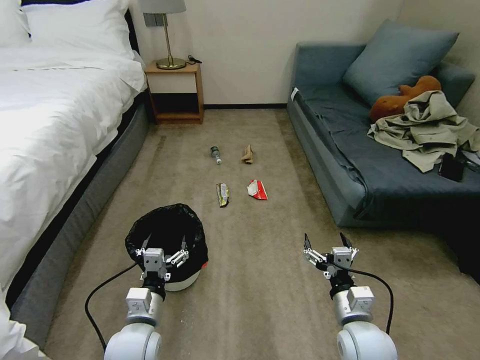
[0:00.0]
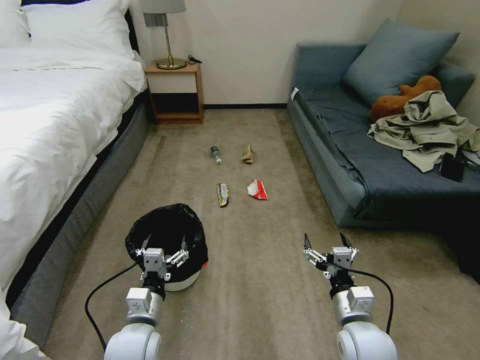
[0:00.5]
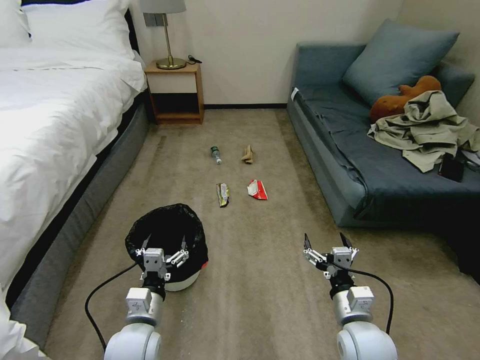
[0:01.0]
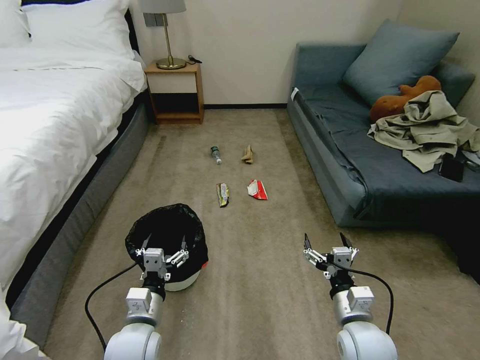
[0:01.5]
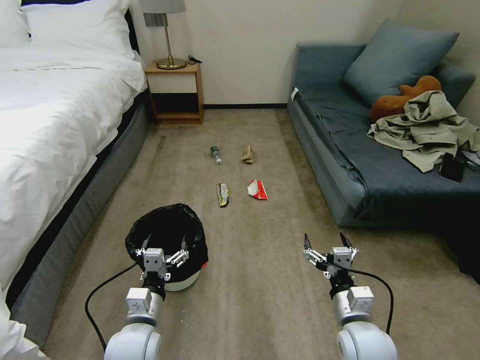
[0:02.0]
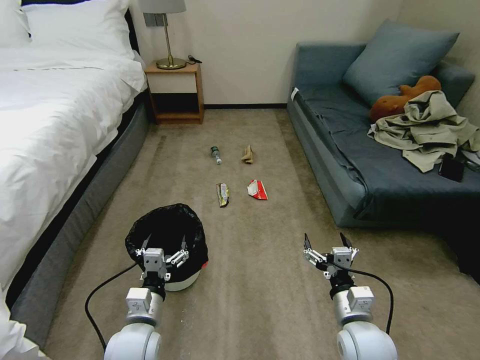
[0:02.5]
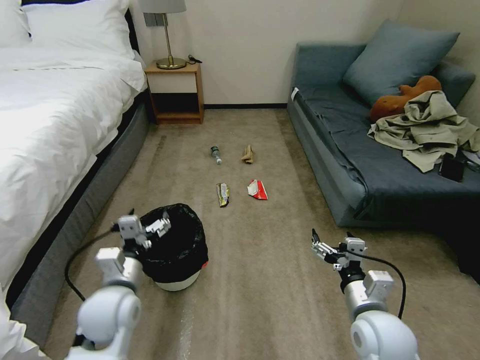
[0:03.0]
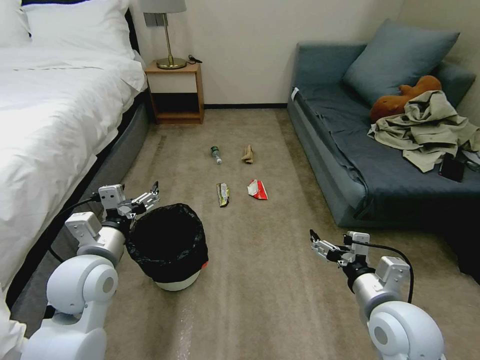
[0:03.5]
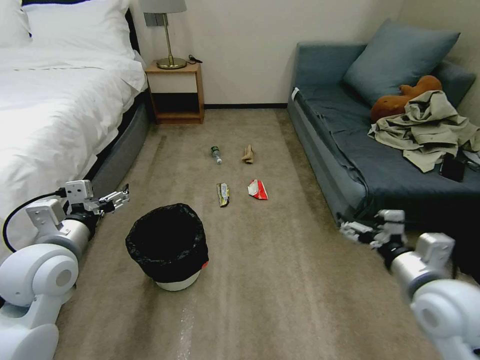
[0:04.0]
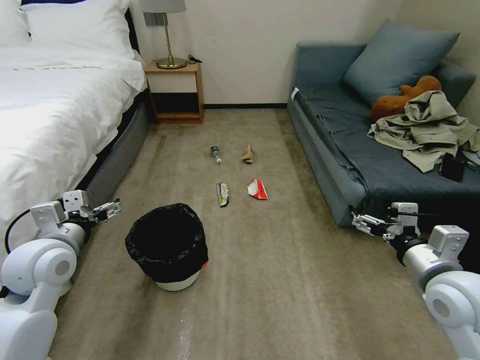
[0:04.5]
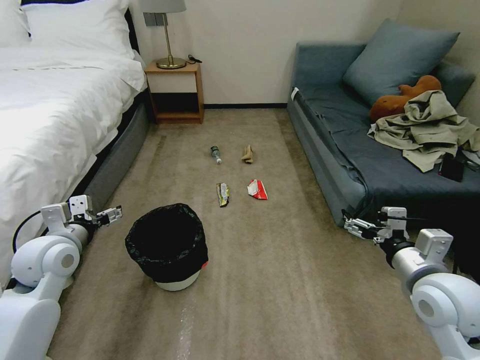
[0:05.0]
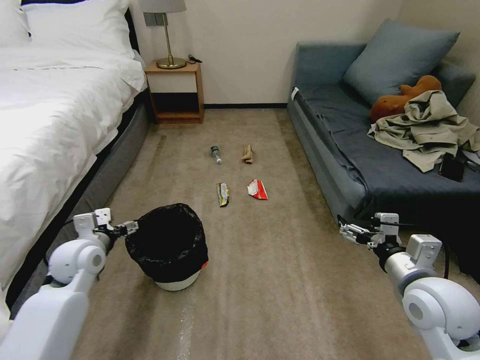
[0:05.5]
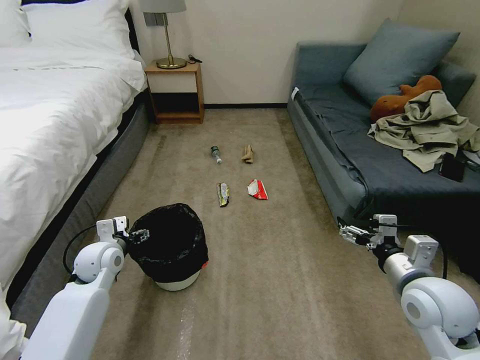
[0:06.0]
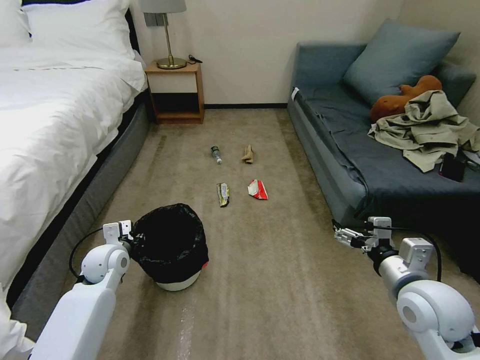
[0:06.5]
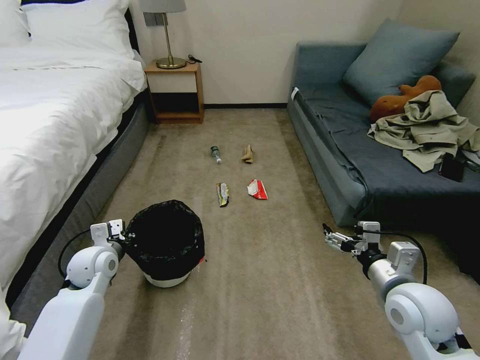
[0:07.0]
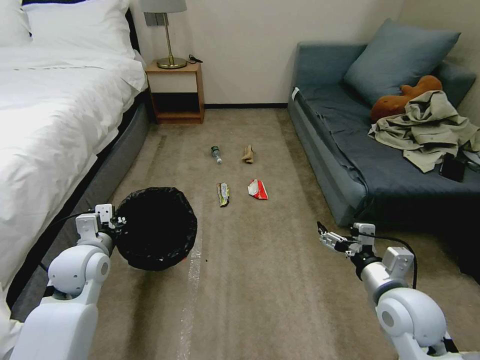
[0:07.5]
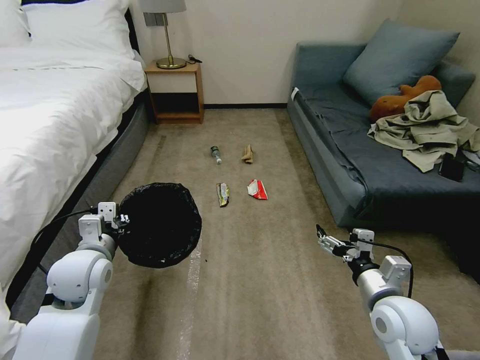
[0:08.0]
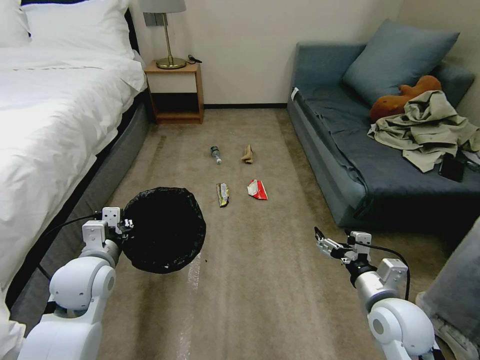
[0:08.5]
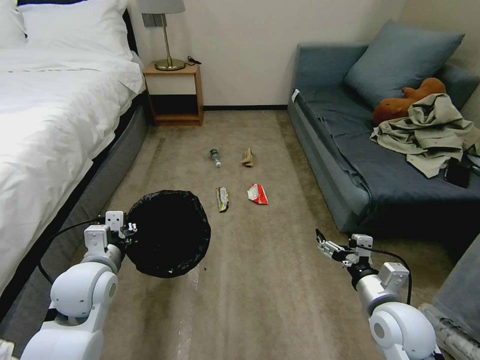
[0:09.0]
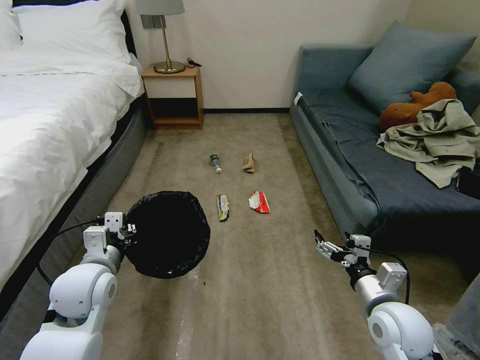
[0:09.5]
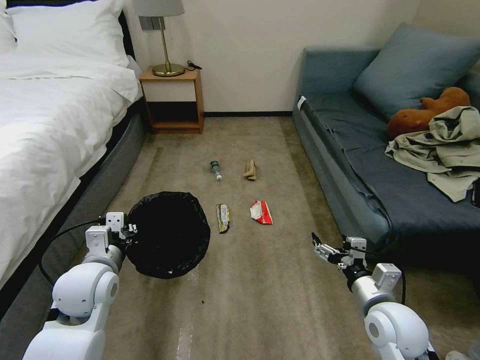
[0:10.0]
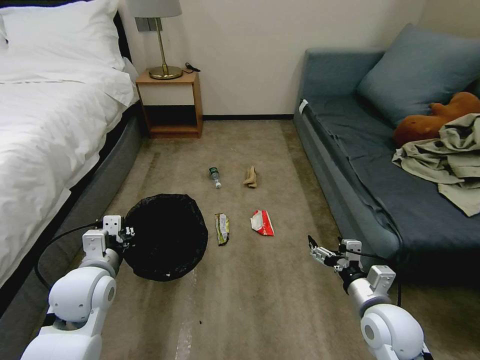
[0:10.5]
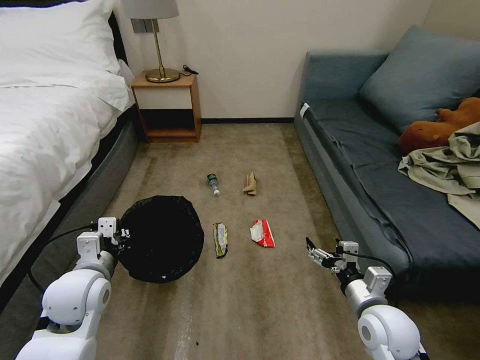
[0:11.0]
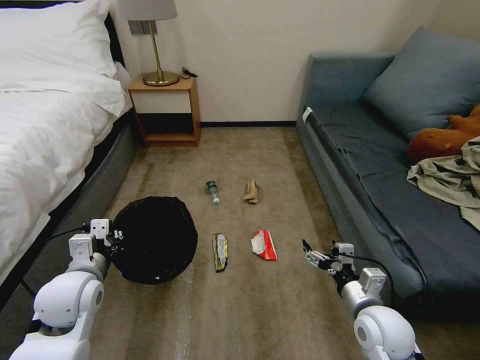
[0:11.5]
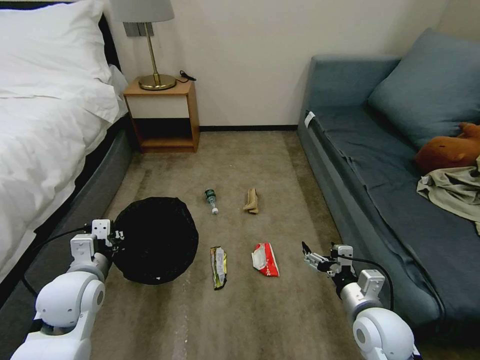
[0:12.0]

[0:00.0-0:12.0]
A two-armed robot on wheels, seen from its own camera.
Task of the whole recording: Pick up the trash bin, then pick up the garbage on the floor and place it into the trash bin.
0:02.0 to 0:04.0: The left gripper moves upward and to the left, approximately 25 cm, while the right gripper goes roughly 20 cm upward and to the right.
0:04.0 to 0:06.0: The left gripper shifts approximately 20 cm downward and forward.
0:06.0 to 0:08.0: The left gripper travels upward and backward by roughly 10 cm, and closes its fingers, while the right gripper is displaced downward by roughly 5 cm.

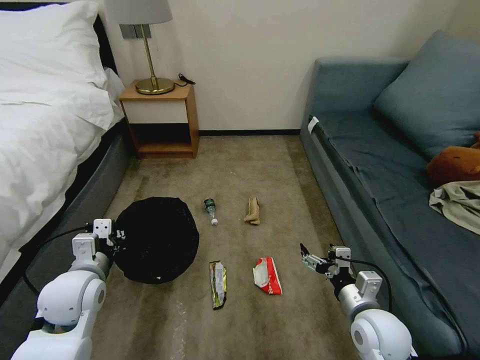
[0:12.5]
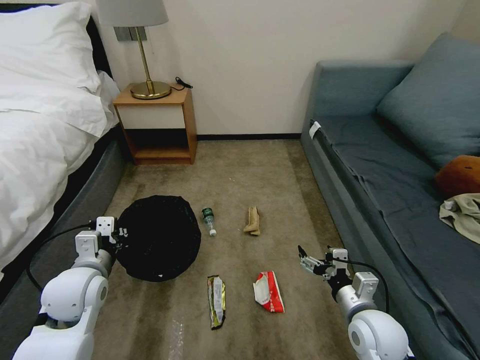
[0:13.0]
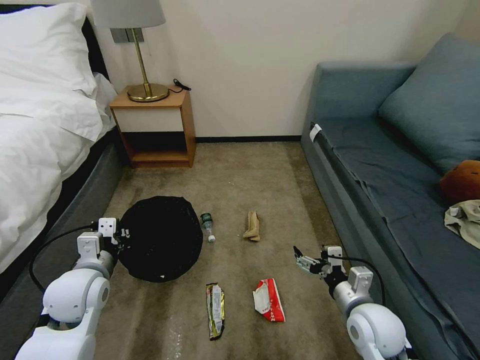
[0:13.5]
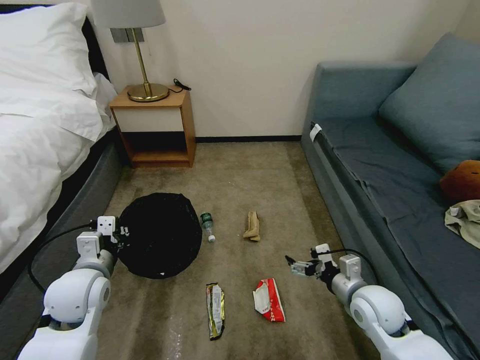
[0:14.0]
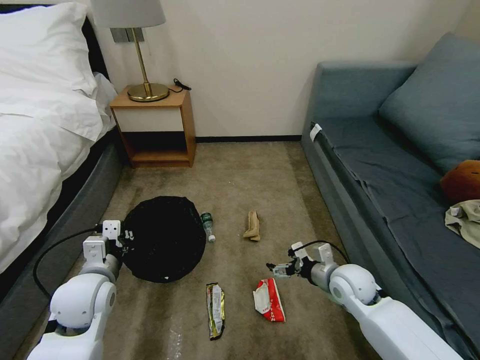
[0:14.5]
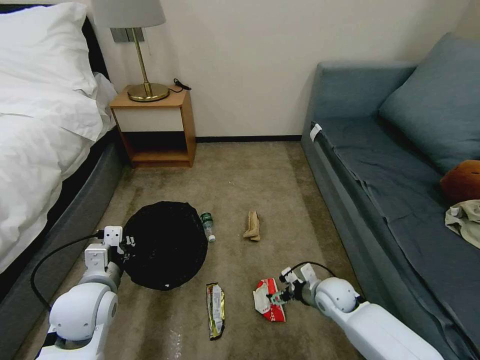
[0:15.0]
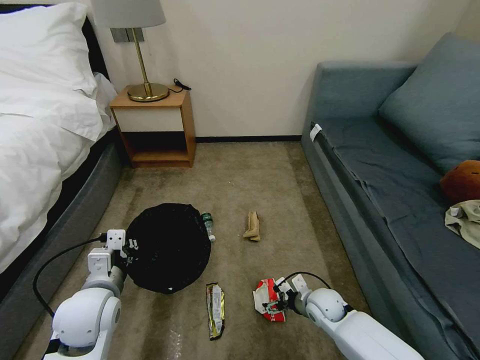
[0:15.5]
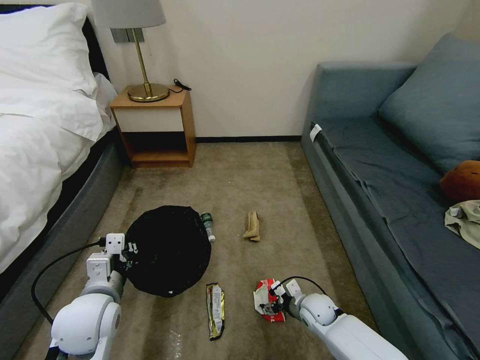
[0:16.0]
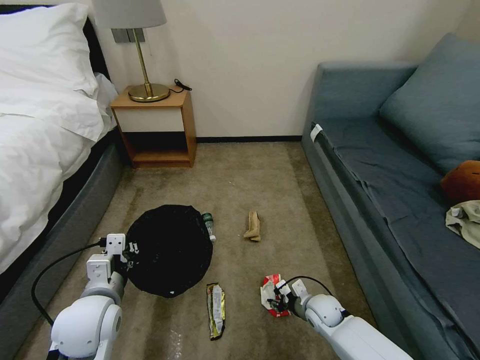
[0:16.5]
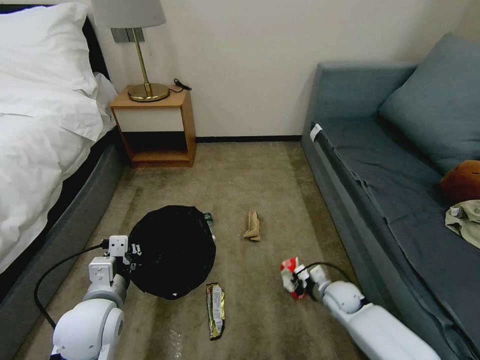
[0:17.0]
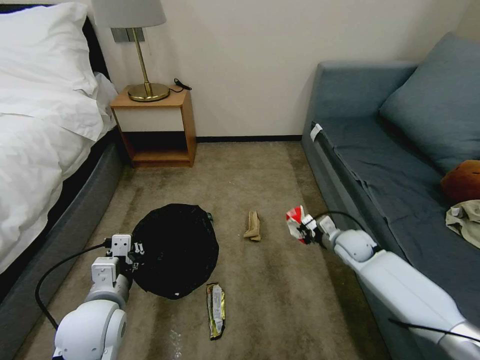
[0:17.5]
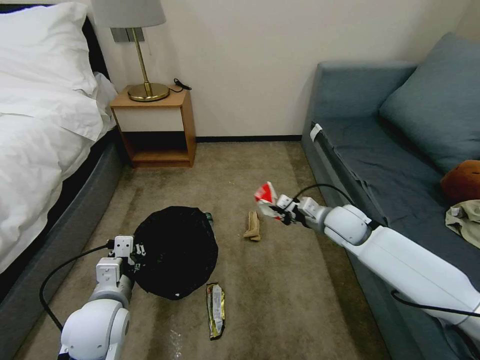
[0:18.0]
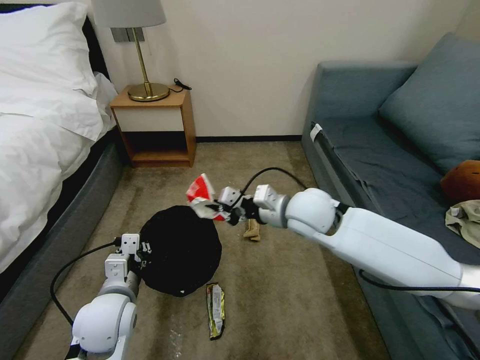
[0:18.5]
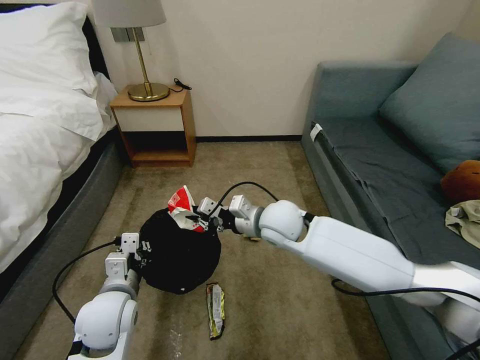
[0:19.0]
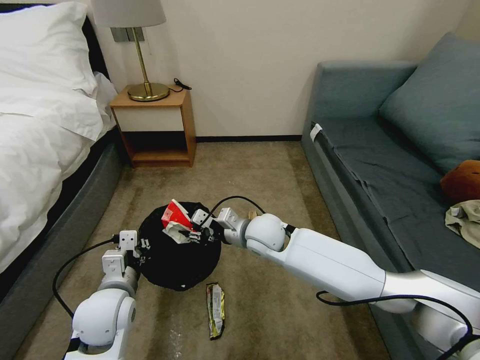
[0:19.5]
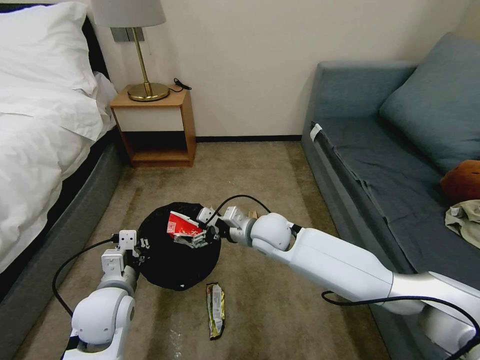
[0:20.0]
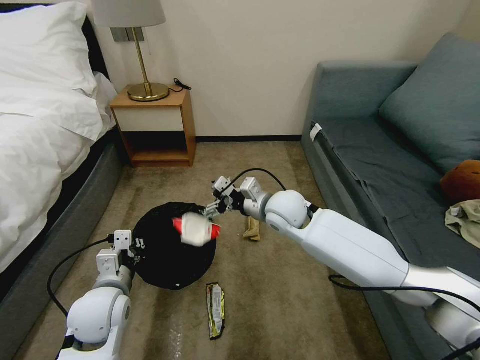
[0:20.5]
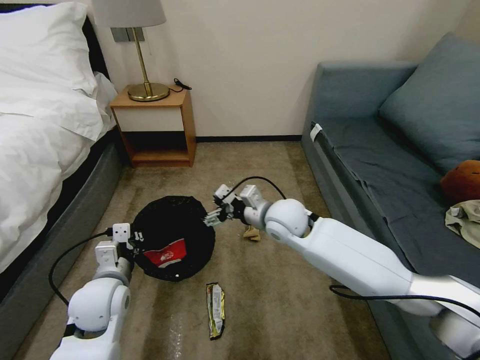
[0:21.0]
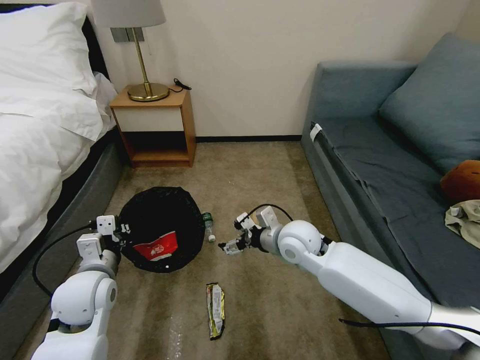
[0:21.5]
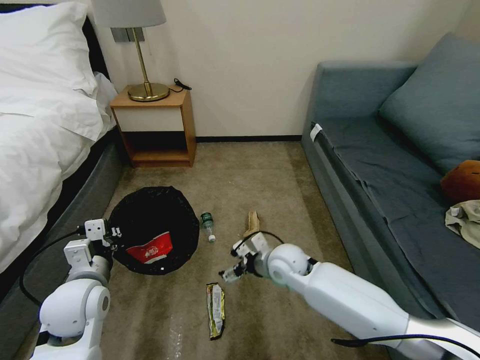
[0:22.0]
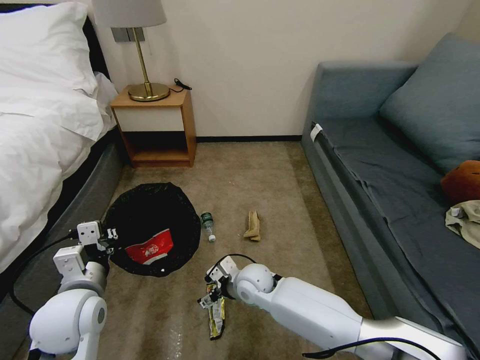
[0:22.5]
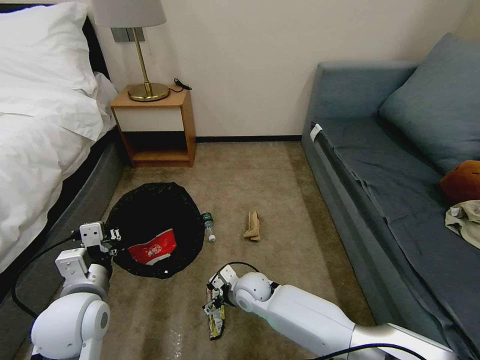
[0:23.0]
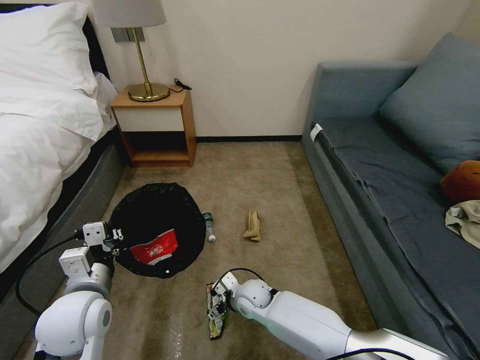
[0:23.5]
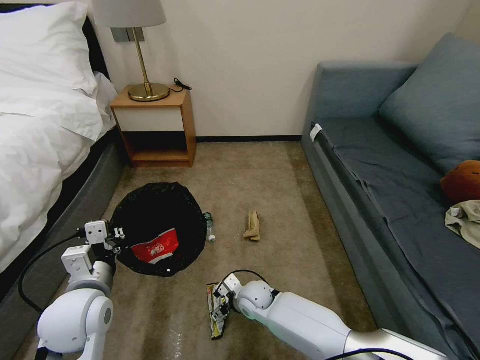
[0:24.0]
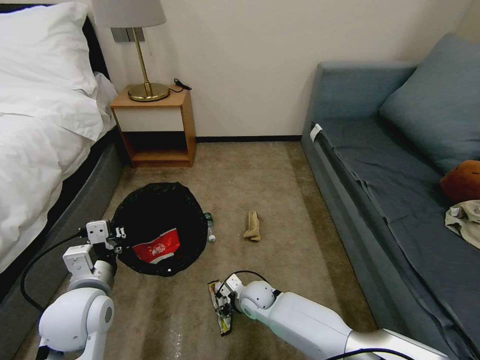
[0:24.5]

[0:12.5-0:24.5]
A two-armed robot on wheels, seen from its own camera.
Task of the whole recording: Pick up the trash bin, then pick up the garbage on the floor and place it into the trash bin.
0:12.5 to 0:14.5: The right gripper shifts roughly 10 cm forward.
0:14.5 to 0:16.5: The left gripper shifts by roughly 5 cm; the right gripper travels downward by some 15 cm, and closes.
0:16.5 to 0:18.5: The right gripper travels upward by about 35 cm, and closes up.
0:18.5 to 0:20.5: The right gripper opens.
0:20.5 to 0:22.5: The right gripper goes roughly 20 cm downward and backward; the left gripper shifts by roughly 5 cm.
0:22.5 to 0:24.5: The right gripper goes roughly 10 cm downward, and closes its fingers.

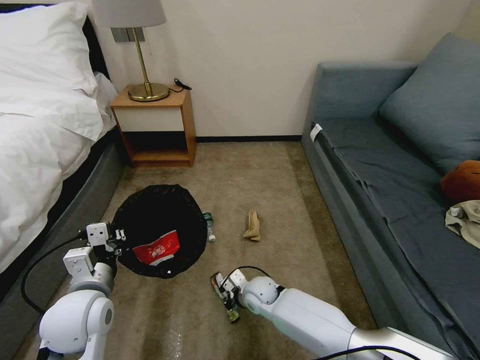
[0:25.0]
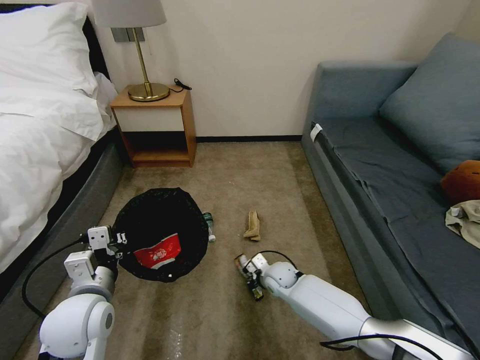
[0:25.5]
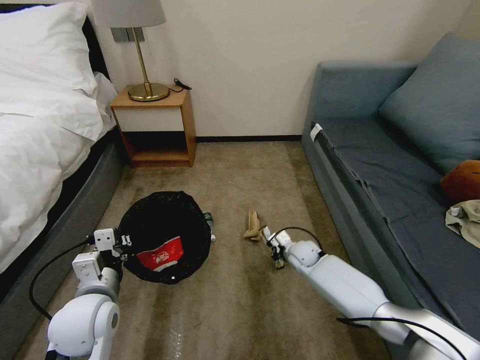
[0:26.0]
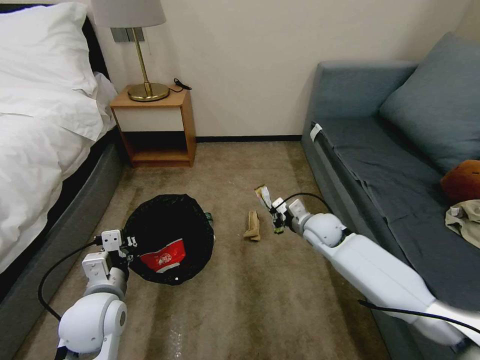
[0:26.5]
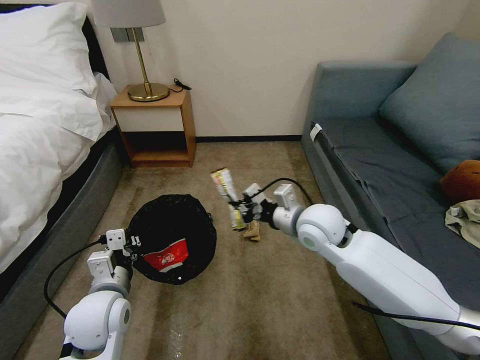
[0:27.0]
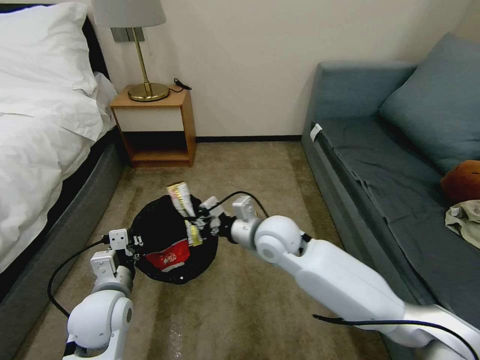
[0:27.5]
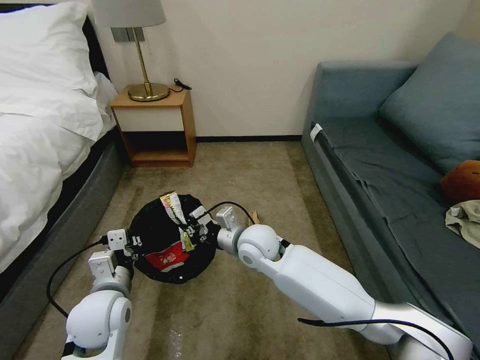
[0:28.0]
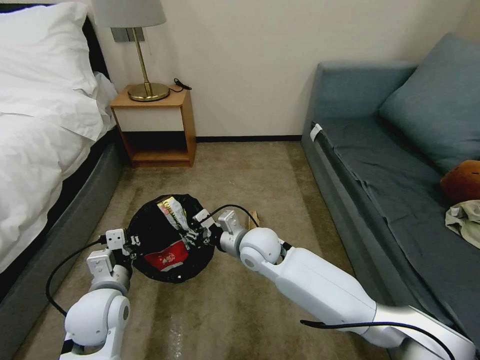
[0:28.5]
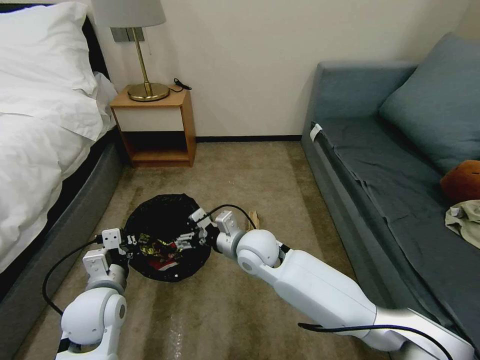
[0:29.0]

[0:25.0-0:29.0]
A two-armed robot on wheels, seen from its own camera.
Task of the whole recording: Pick up the trash bin, then pick up the garbage on the floor and place it into the trash bin.
0:25.0 to 0:27.0: The right gripper heads upward, covering some 30 cm.
0:27.0 to 0:29.0: The right gripper heads to the left and downward, covering about 15 cm, and opens up.
